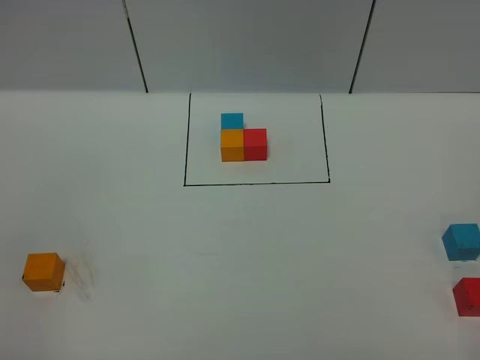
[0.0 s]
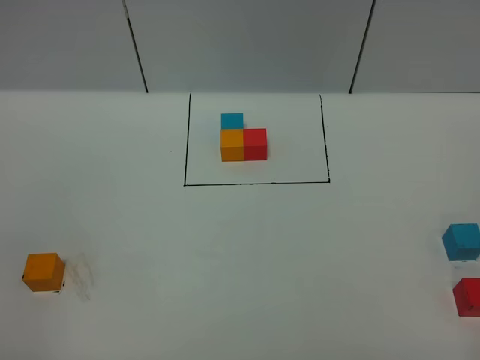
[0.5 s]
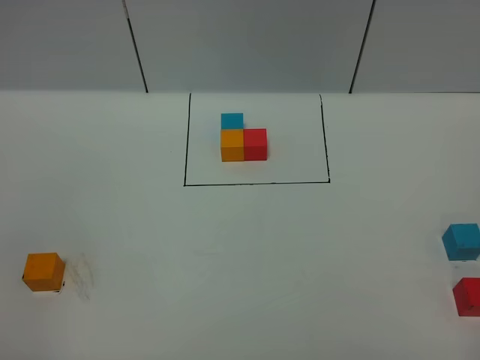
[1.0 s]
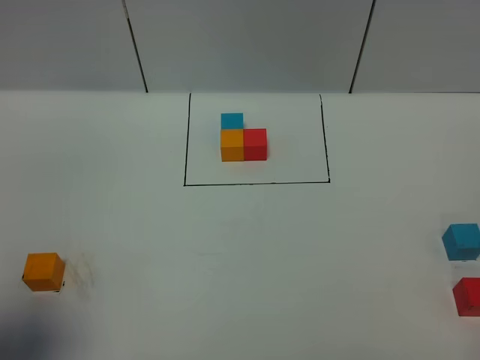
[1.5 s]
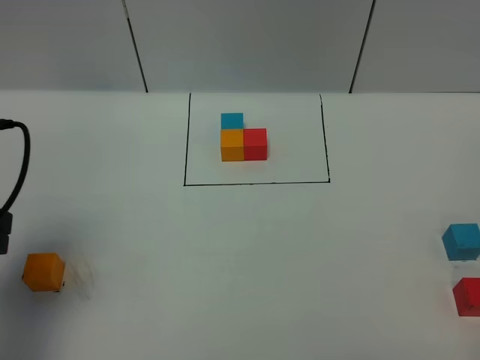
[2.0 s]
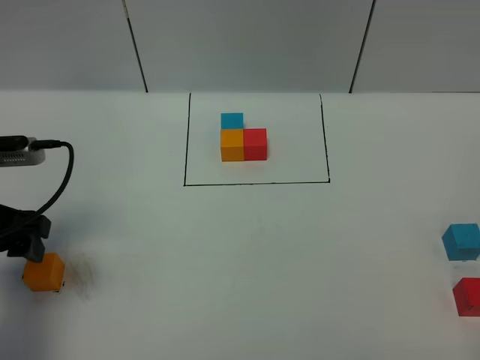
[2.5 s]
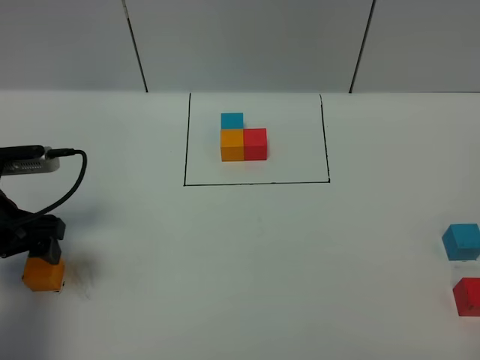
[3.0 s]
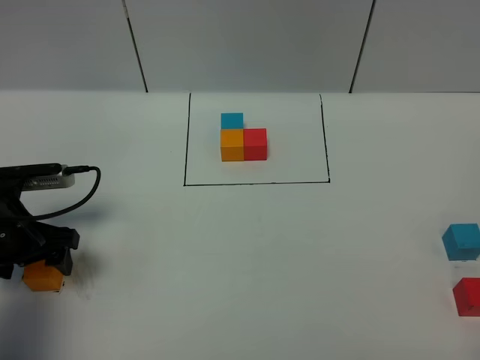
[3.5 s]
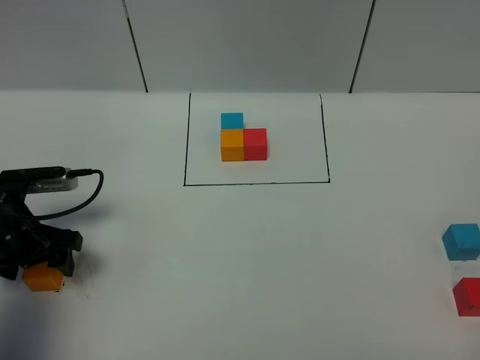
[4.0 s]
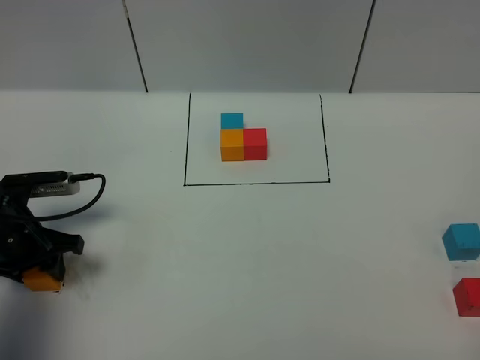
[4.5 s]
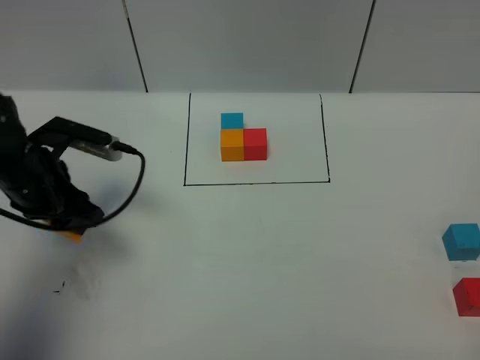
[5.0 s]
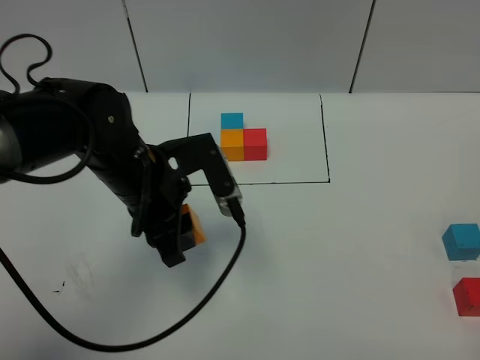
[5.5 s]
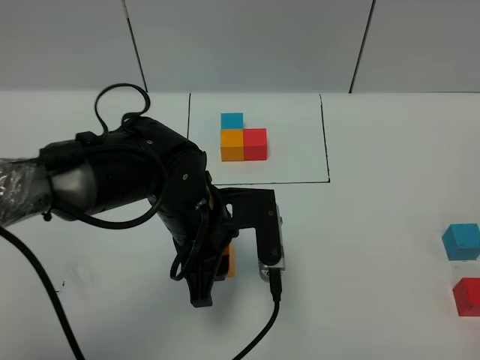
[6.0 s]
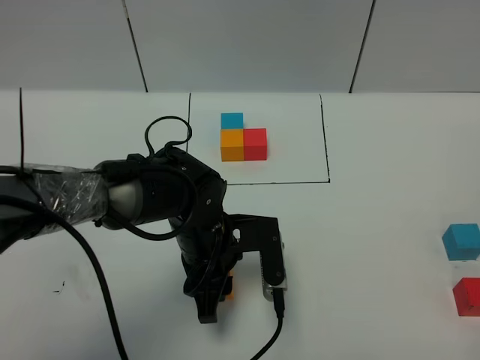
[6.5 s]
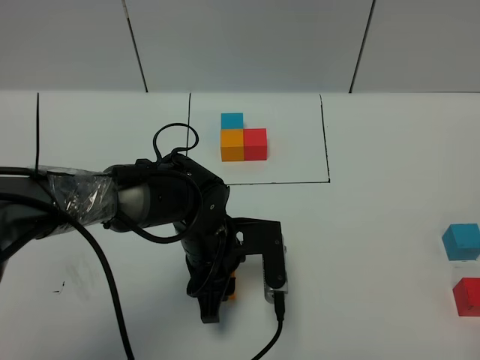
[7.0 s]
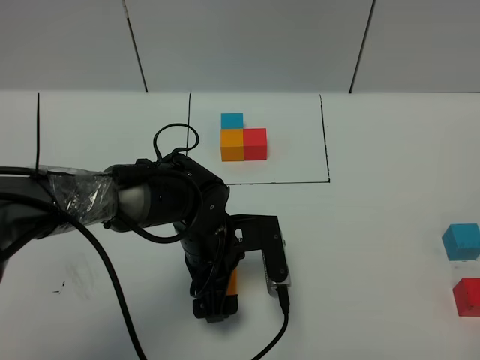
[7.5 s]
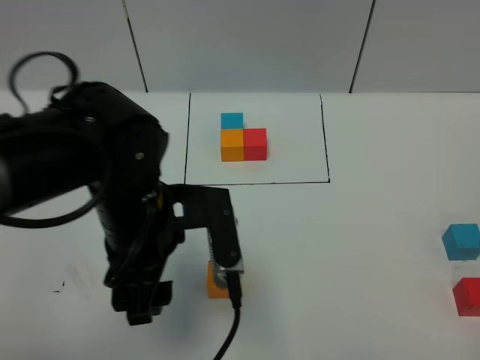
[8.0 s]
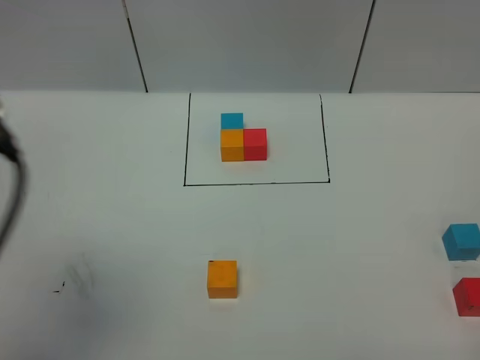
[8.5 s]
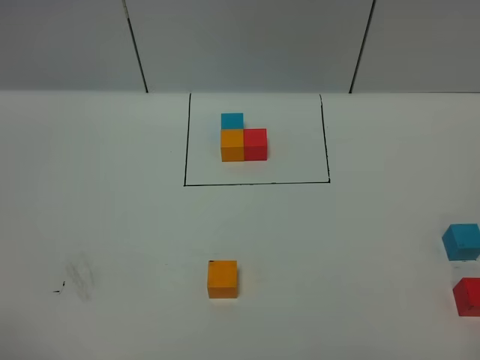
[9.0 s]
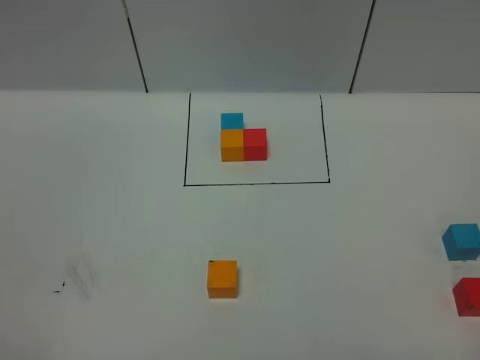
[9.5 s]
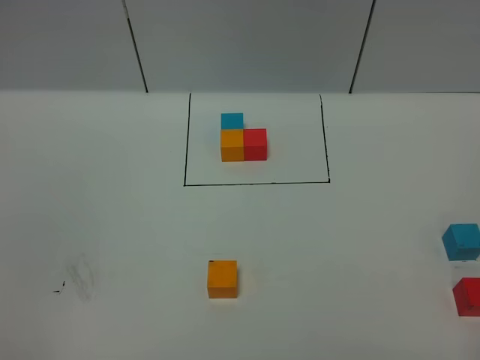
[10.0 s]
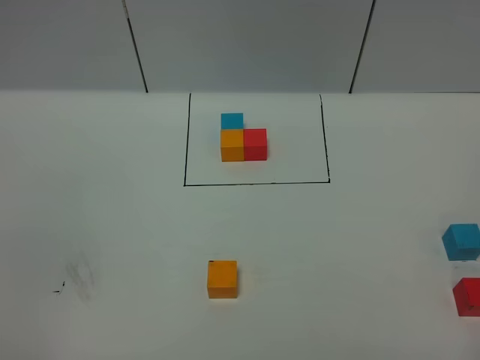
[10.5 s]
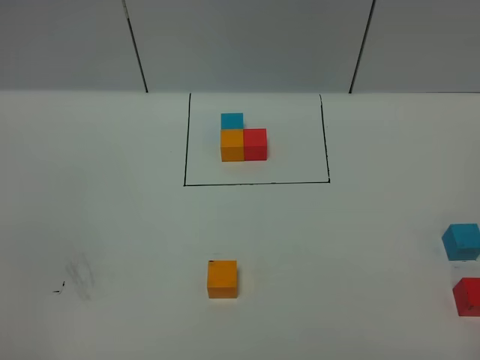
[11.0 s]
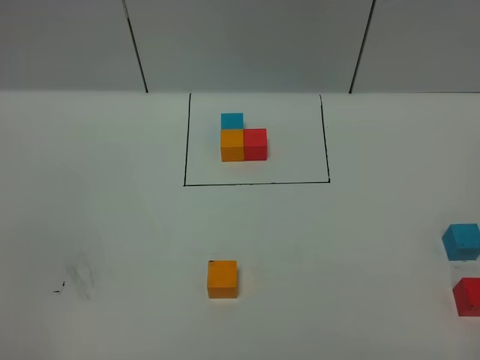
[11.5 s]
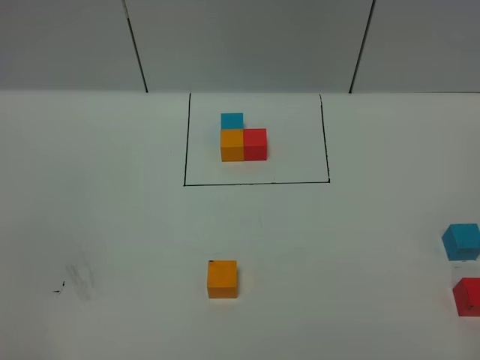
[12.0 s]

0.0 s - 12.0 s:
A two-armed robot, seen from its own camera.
Task of the whole recording: According to the building block template in front, assemble the scattered blocks together.
Step, 2.0 s - 7.5 s: Put the orange cube in the center of the table.
0.0 s - 2.0 s: The left gripper is displaced forward by roughly 25 cm.
2.0 s - 4.0 s: The left gripper heads downward and forward, covering about 15 cm.
4.0 s - 6.0 s: The left gripper heads to the right, covering some 25 cm, and closes.
6.0 s - 8.0 s: The left gripper goes about 5 cm upward, and opens its fingers.
8.0 s - 10.0 s: The left gripper moves backward and to the left, some 35 cm.

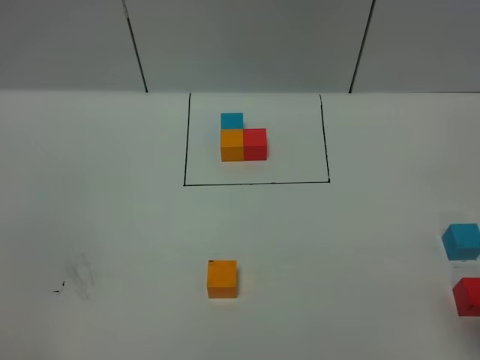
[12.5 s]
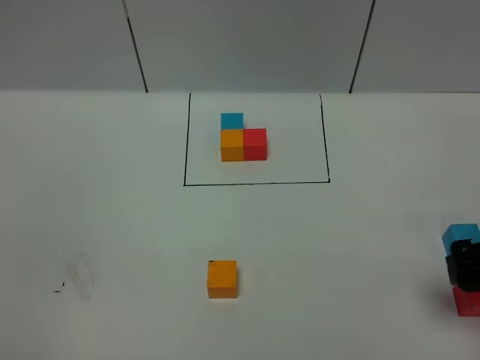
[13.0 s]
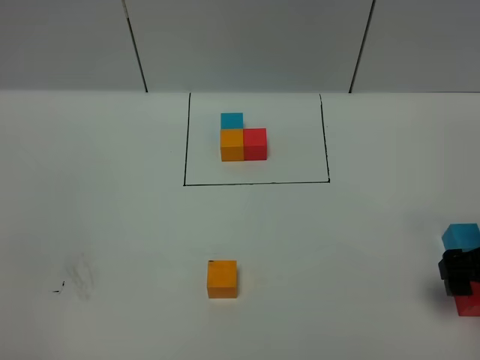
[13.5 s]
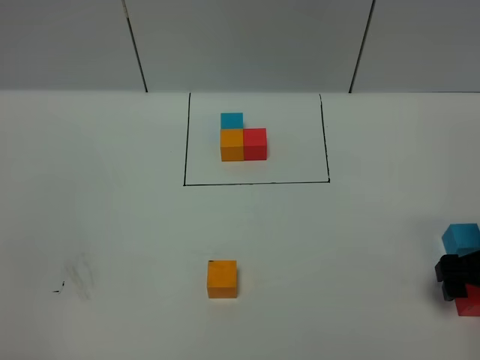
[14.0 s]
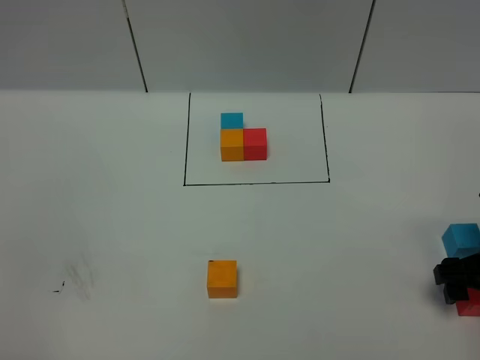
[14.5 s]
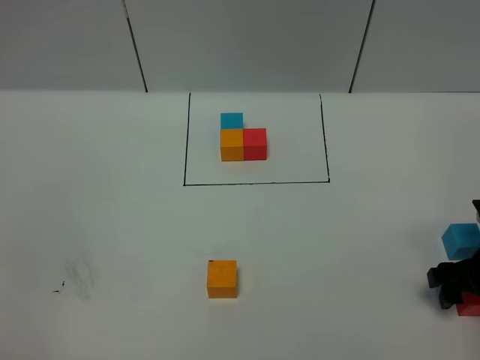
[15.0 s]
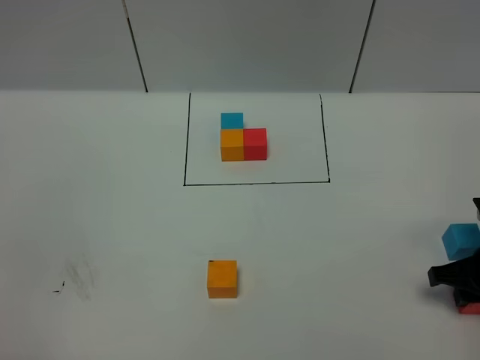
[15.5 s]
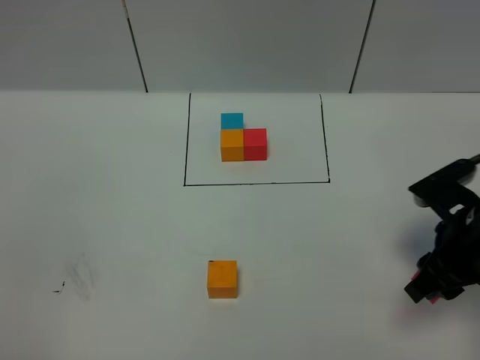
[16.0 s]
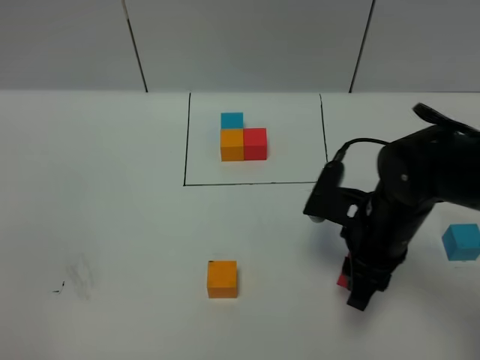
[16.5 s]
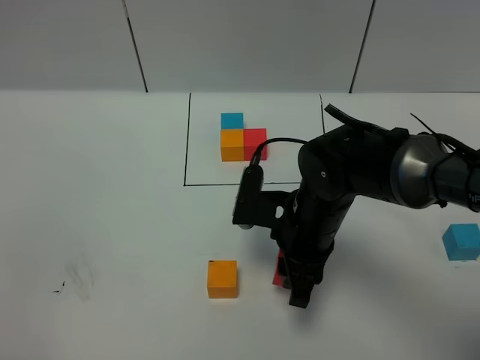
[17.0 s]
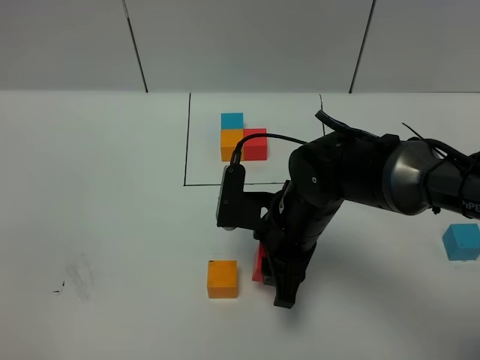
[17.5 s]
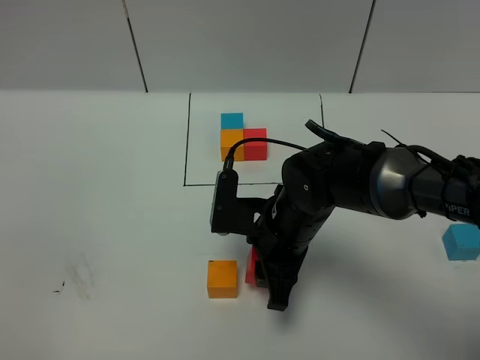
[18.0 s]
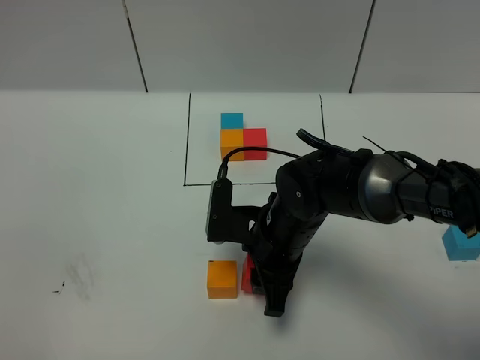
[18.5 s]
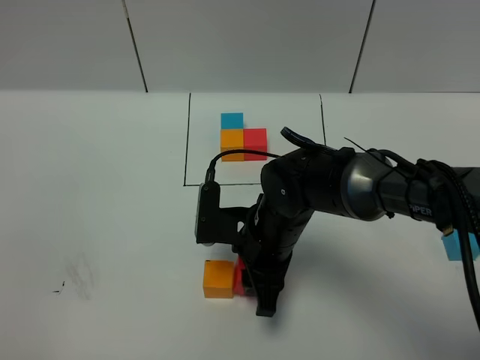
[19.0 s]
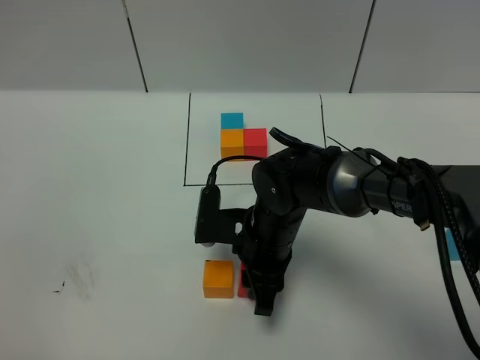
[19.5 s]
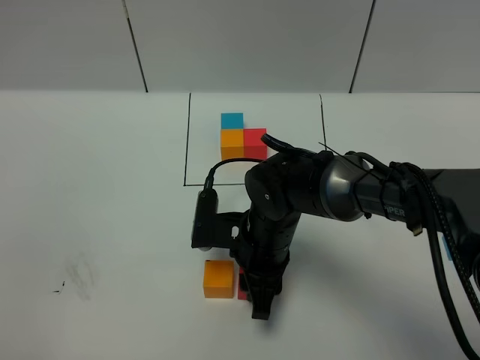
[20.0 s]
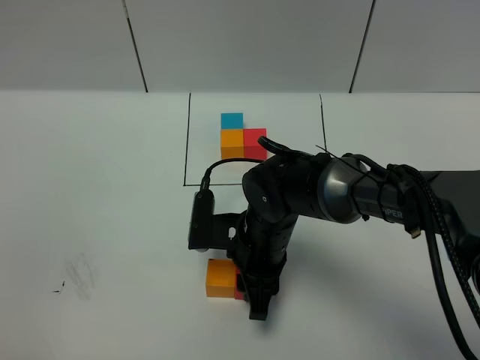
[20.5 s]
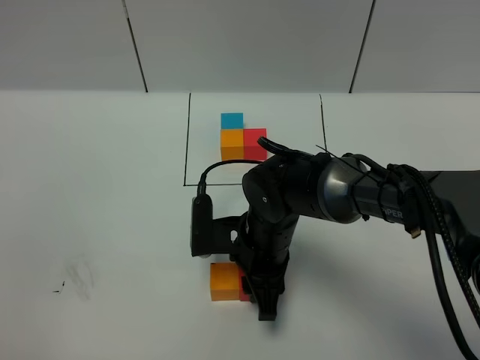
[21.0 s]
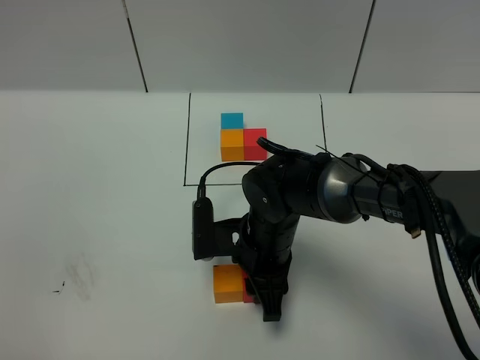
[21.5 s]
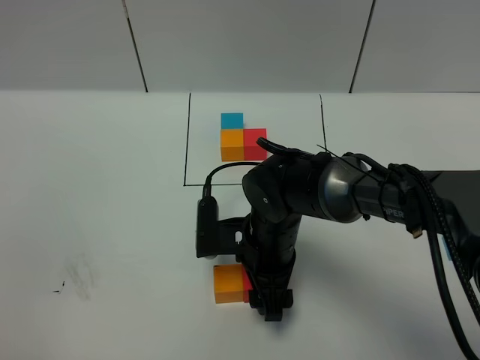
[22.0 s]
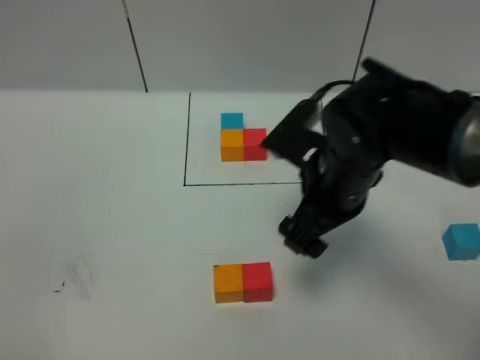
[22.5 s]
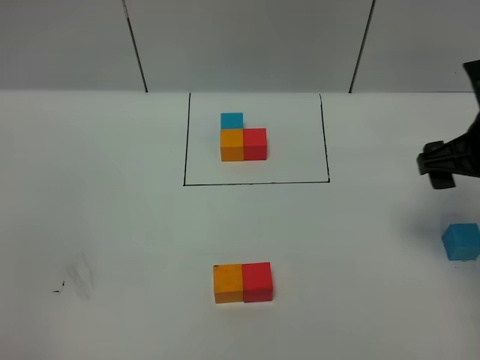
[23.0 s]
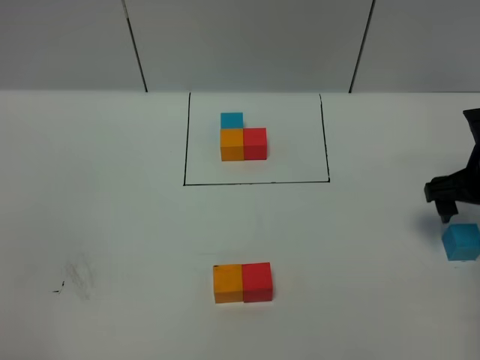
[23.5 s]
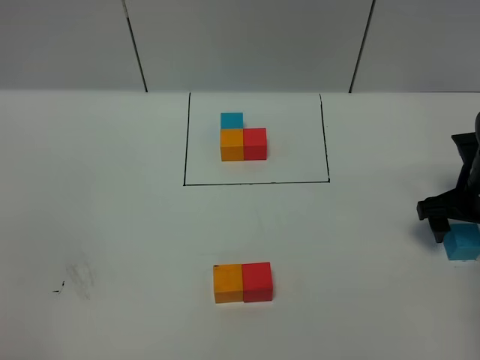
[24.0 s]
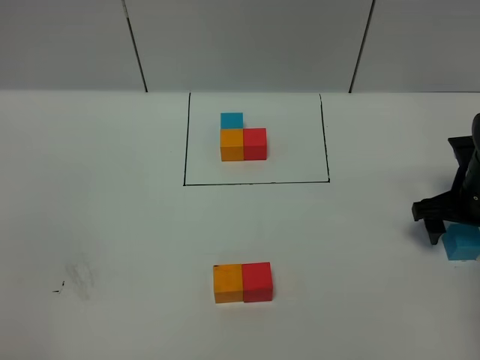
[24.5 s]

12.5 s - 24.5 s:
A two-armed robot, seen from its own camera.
Task of the whole recording: According to the building block template in front, assemble the scattered blocks together.
Step, 12.5 s - 22.0 s: Put the red cube on the right of the orange cube.
12.5 s - 14.5 s: The right gripper shifts approximately 20 cm downward and forward.
14.5 s - 16.5 s: The right gripper goes some 15 cm to the left, and closes its fingers.
16.5 s - 18.5 s: The right gripper travels to the left by some 10 cm.
18.5 s - 20.5 s: There are only small adjustments of the grippers.
20.5 s - 22.5 s: The right gripper heads upward and to the right, covering roughly 15 cm, and opens its fingers.
22.5 s - 24.5 s: The right gripper is displaced to the right and downward by some 20 cm.

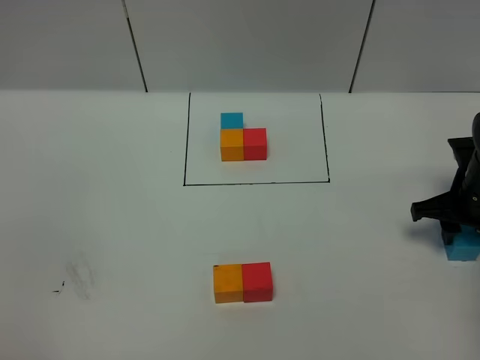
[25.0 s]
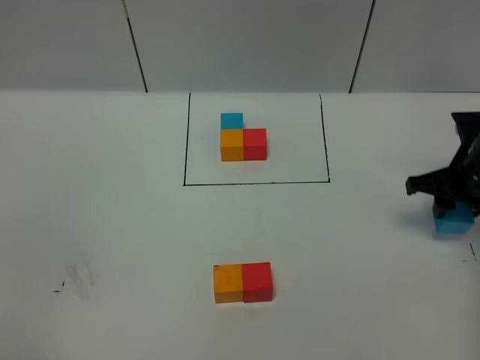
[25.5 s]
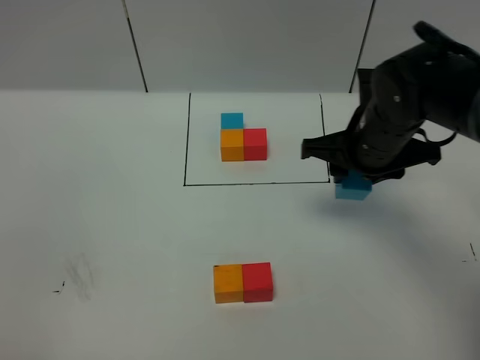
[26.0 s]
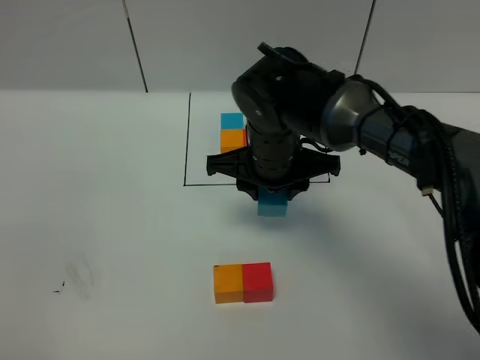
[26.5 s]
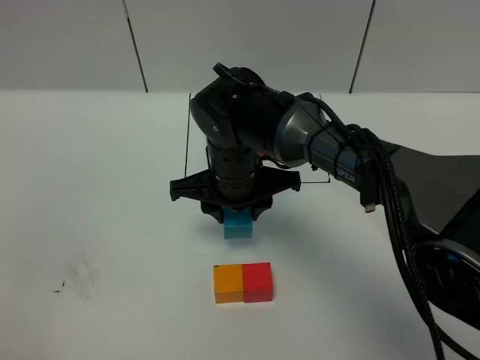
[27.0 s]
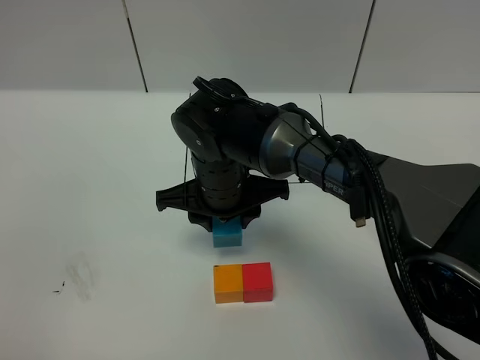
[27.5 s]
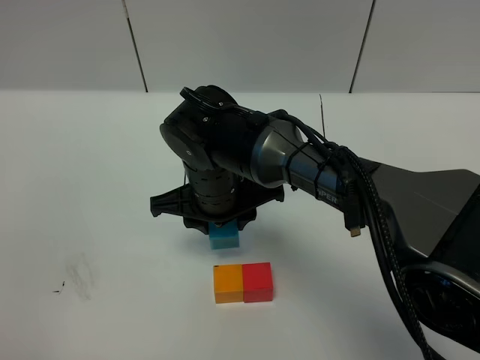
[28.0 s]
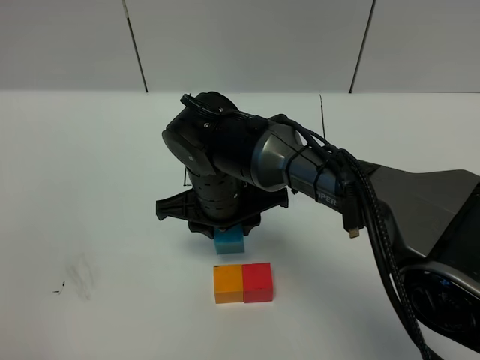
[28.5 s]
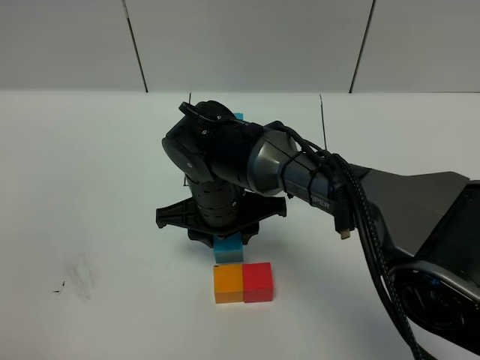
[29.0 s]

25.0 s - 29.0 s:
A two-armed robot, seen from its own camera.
Task of the whole recording: According to the building block template in front, assemble the scattered blocks together.
25.0 s - 27.0 s: The right gripper shifts some 30 cm to the left.
